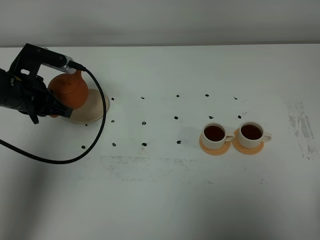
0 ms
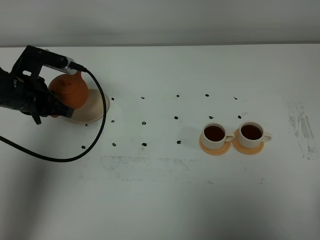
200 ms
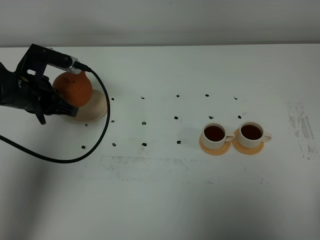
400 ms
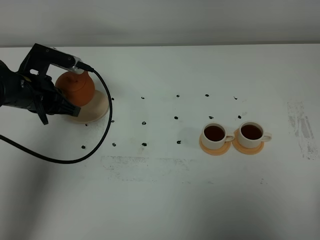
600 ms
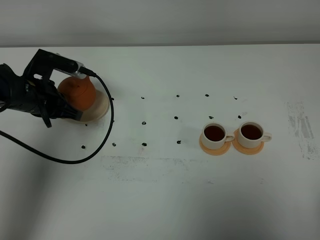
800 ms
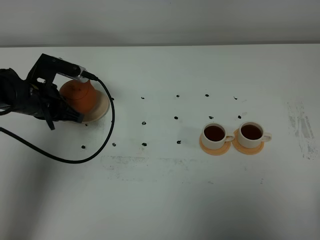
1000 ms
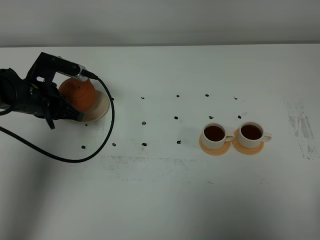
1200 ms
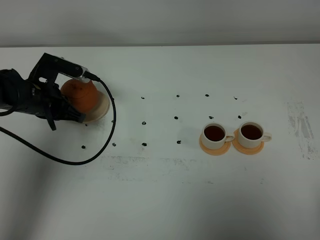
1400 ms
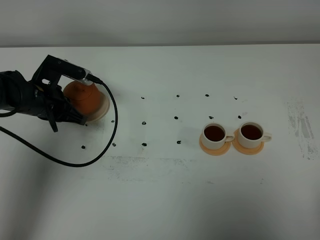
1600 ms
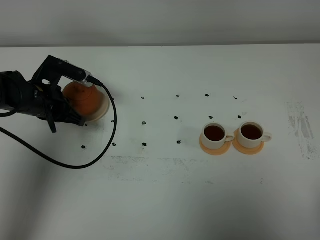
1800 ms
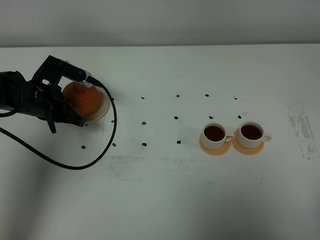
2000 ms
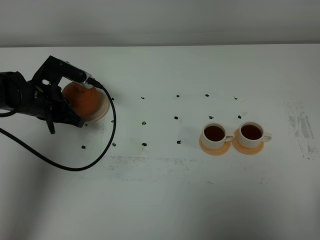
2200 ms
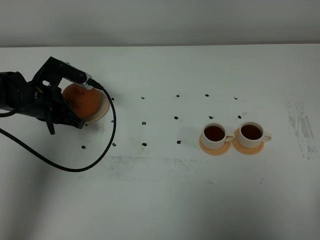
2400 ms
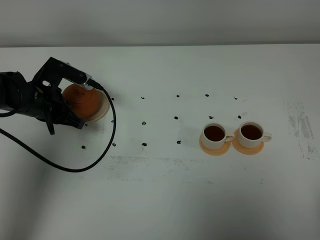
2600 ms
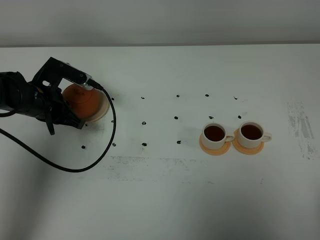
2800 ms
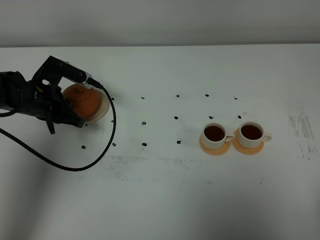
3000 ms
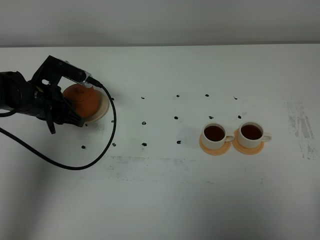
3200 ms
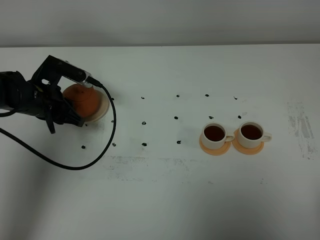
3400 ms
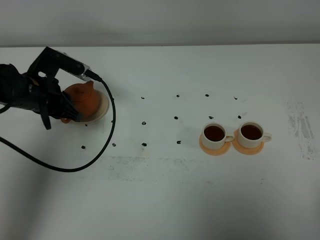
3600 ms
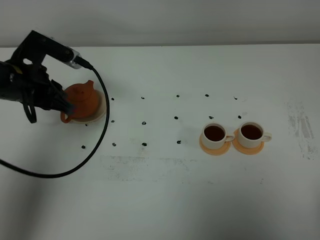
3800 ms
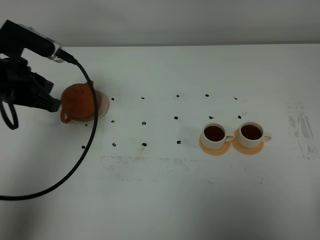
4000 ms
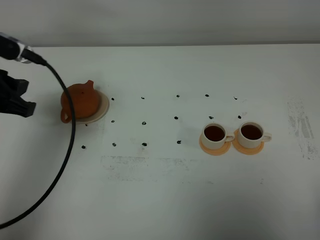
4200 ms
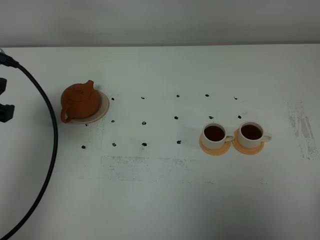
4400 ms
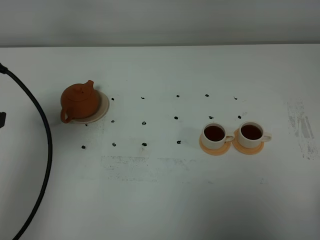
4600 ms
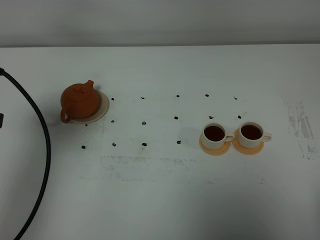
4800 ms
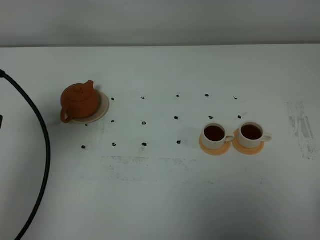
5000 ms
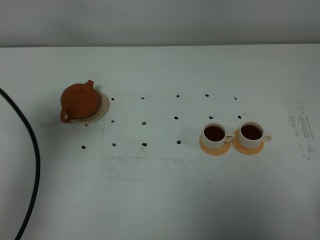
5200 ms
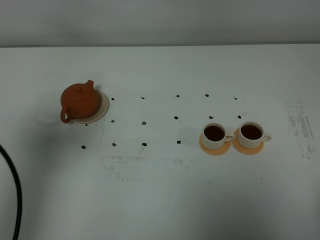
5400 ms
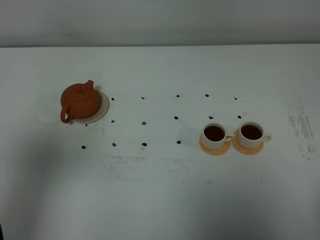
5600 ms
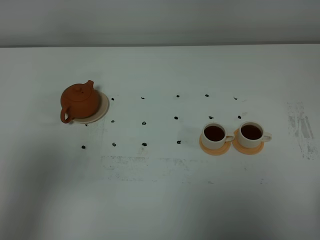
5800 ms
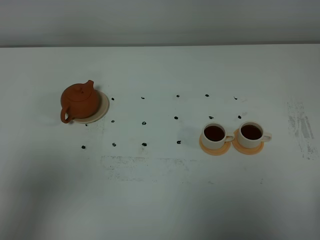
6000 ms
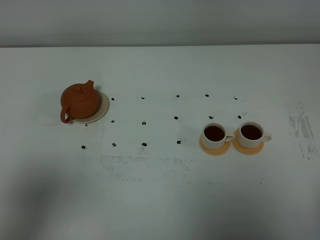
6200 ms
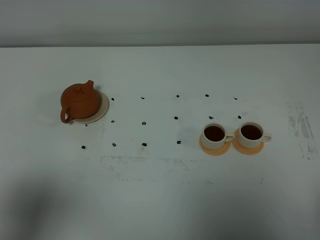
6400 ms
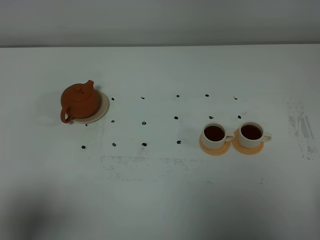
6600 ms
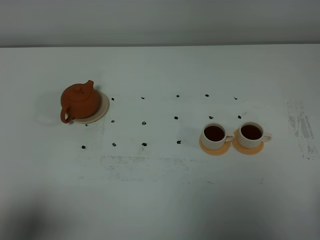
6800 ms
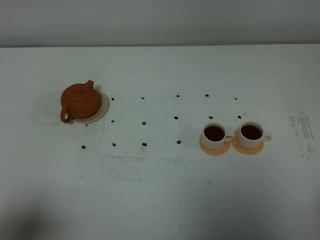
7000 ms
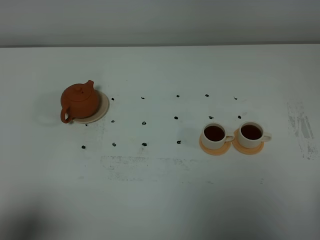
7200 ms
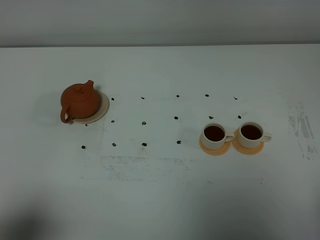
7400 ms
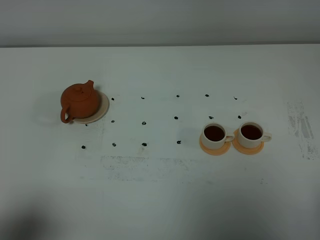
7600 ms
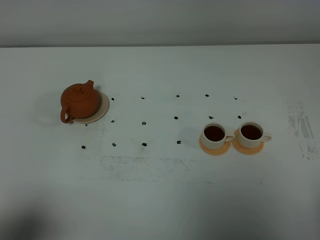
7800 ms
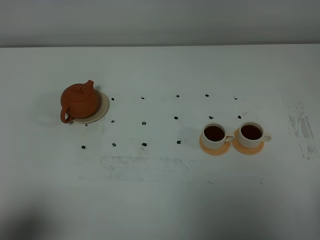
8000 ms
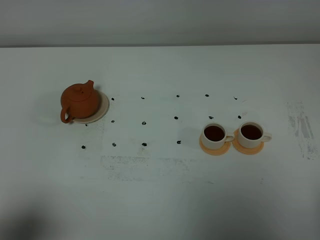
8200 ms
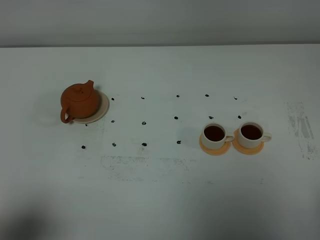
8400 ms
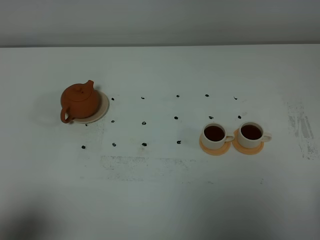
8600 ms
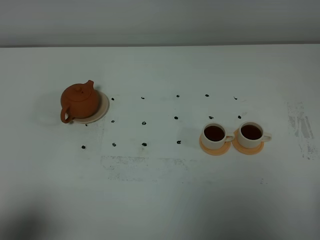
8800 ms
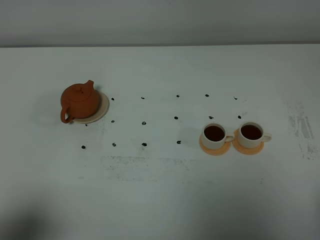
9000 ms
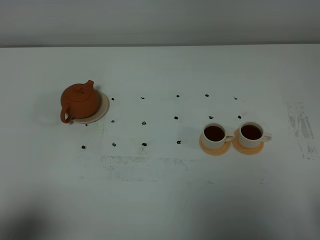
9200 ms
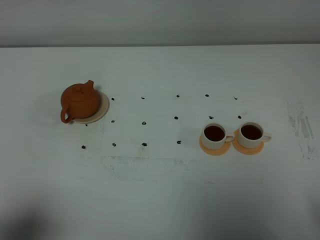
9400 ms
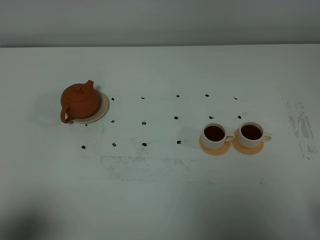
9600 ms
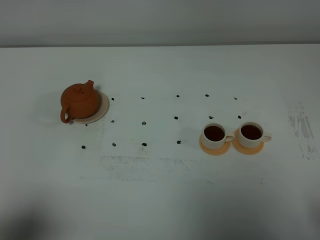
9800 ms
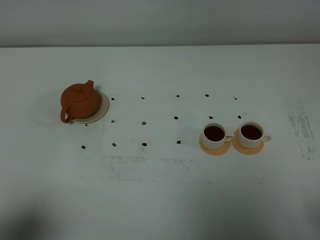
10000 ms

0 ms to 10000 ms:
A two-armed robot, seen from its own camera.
Task of the whole recording: grasp the brown teapot and pour the tea into the two white teacups one by one, put the brown teapot back in its original place.
0 ms to 1400 ms: The grippers stay close to where they were, moving slightly.
1400 ms to 2800 ms: Both grippers stay put.
2800 ms to 4200 ms: The left gripper heads upward and backward, covering approximately 20 cm, and opens up.
4200 ms to 5800 ms: The left gripper travels backward and upward by roughly 20 cm.
5800 ms to 7200 ms: The left gripper goes roughly 10 cm downward and backward.
